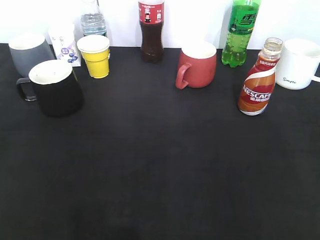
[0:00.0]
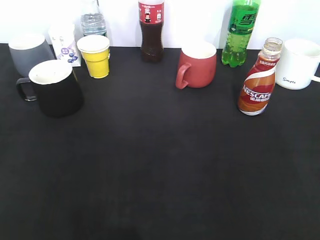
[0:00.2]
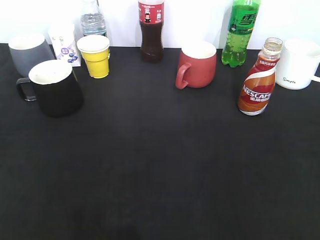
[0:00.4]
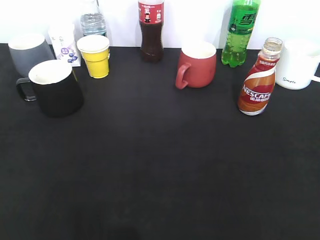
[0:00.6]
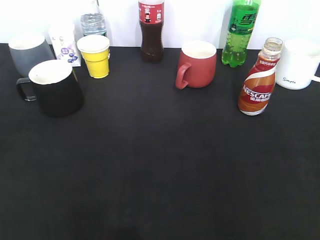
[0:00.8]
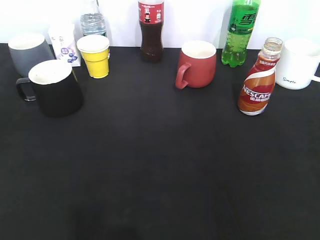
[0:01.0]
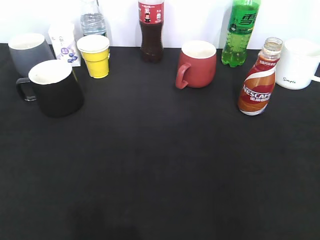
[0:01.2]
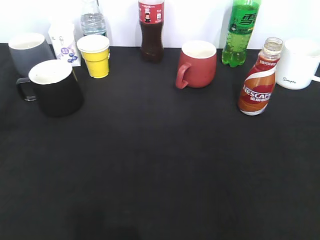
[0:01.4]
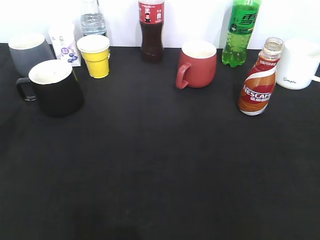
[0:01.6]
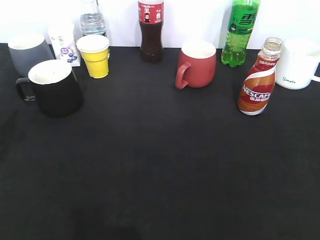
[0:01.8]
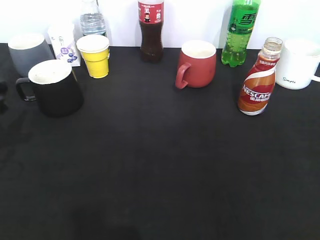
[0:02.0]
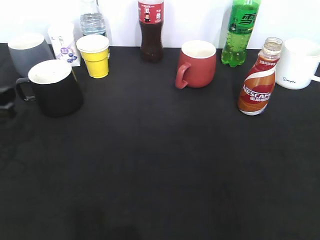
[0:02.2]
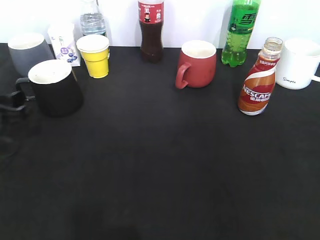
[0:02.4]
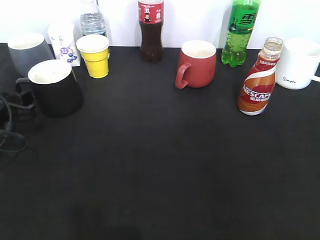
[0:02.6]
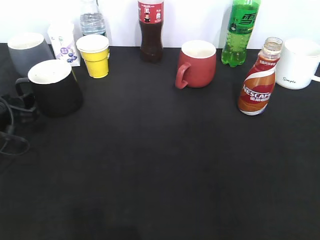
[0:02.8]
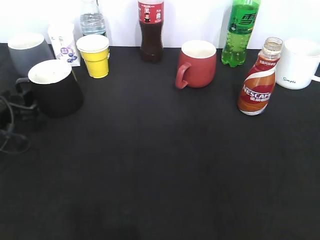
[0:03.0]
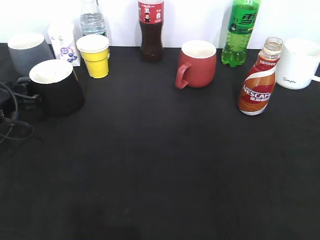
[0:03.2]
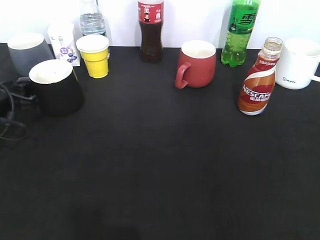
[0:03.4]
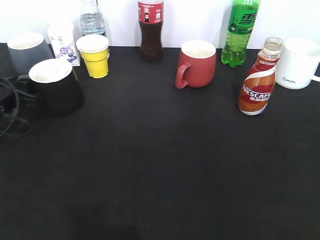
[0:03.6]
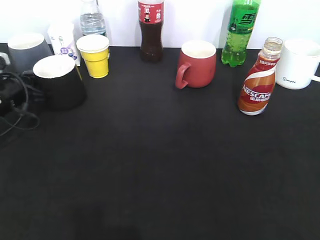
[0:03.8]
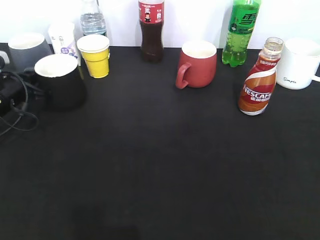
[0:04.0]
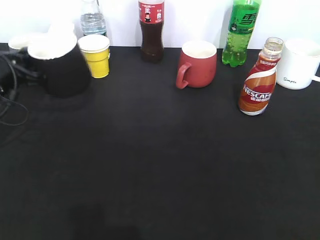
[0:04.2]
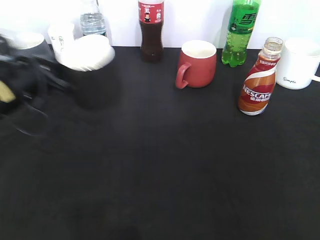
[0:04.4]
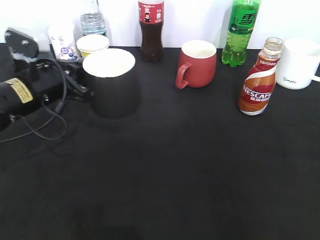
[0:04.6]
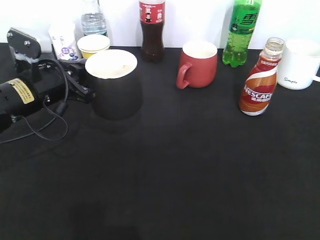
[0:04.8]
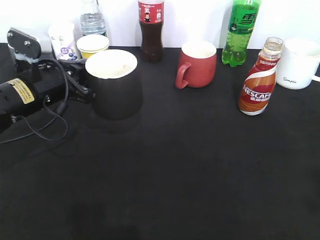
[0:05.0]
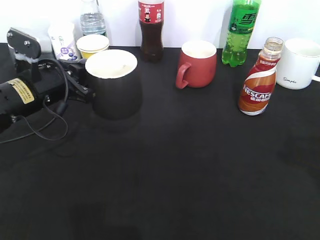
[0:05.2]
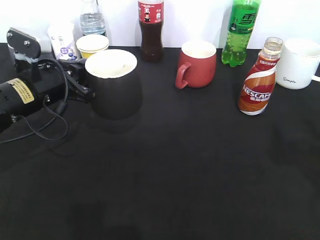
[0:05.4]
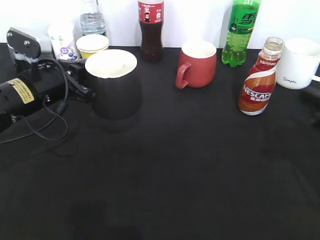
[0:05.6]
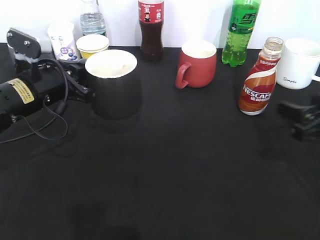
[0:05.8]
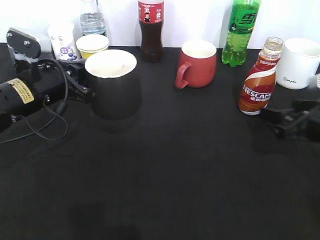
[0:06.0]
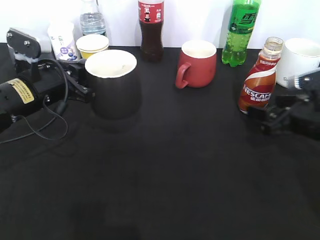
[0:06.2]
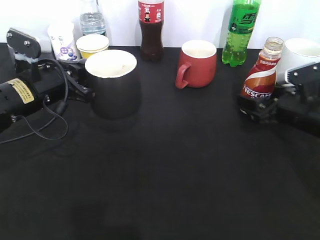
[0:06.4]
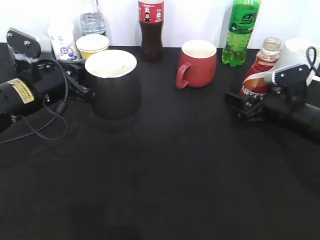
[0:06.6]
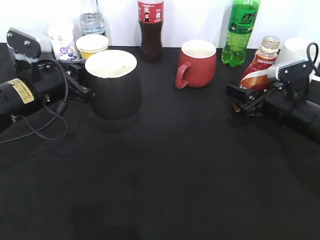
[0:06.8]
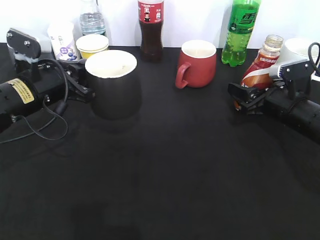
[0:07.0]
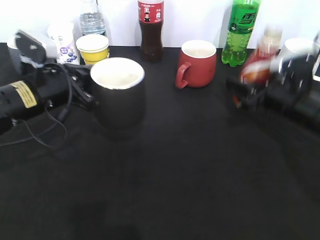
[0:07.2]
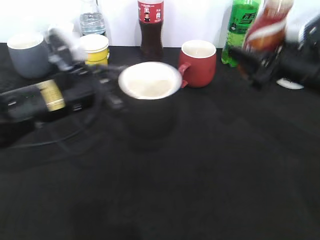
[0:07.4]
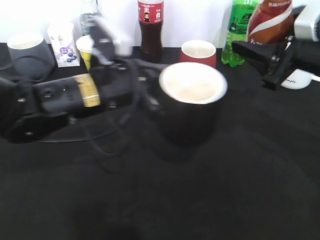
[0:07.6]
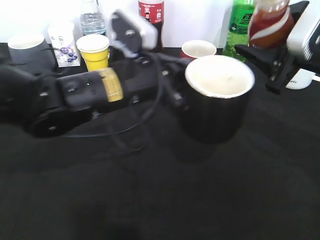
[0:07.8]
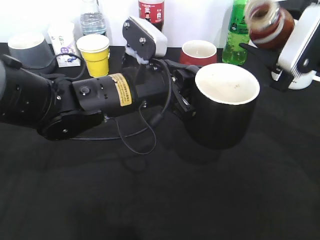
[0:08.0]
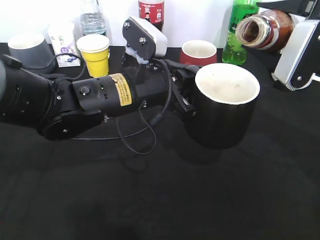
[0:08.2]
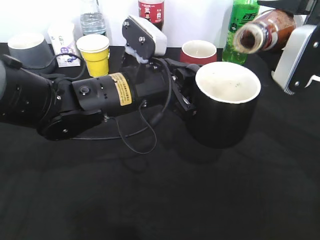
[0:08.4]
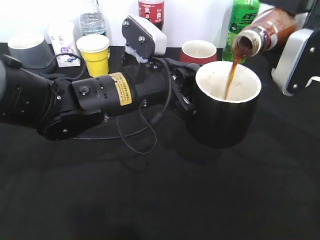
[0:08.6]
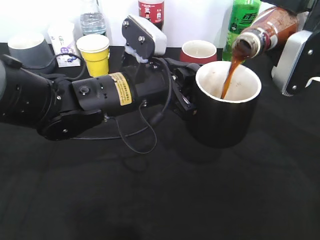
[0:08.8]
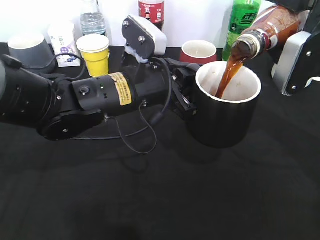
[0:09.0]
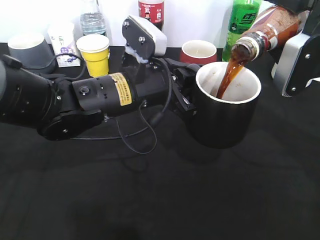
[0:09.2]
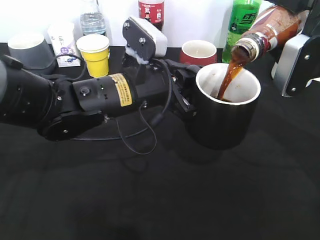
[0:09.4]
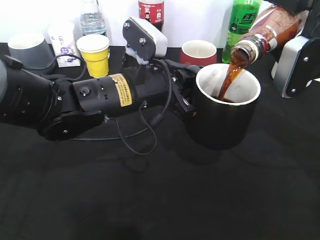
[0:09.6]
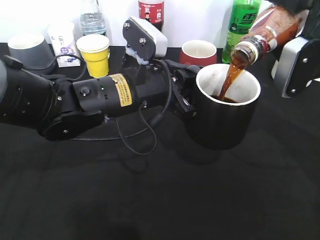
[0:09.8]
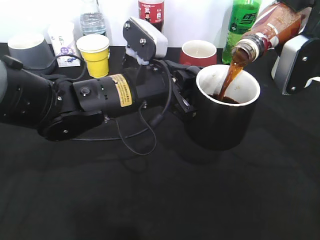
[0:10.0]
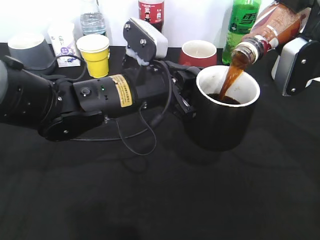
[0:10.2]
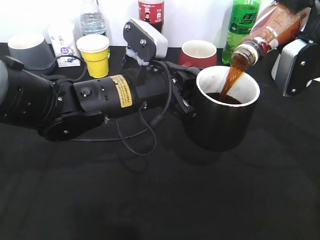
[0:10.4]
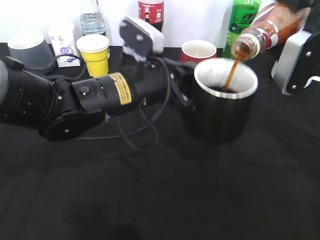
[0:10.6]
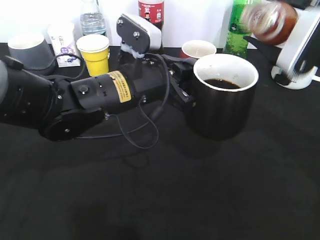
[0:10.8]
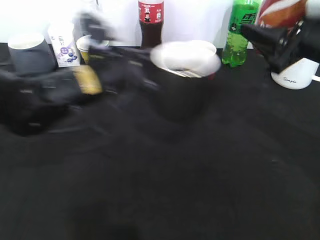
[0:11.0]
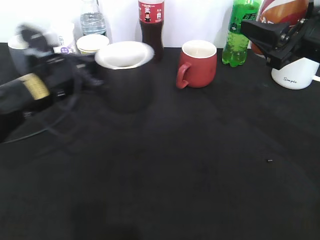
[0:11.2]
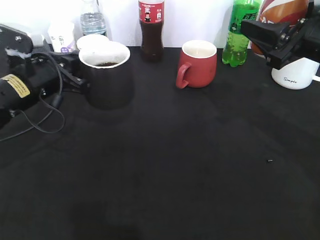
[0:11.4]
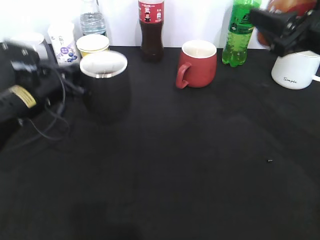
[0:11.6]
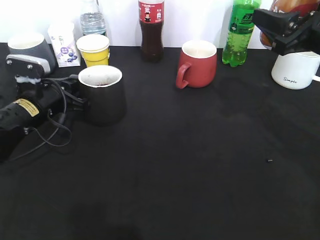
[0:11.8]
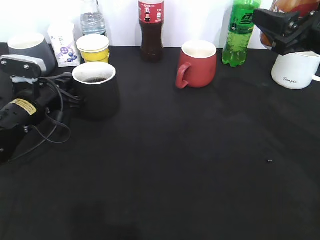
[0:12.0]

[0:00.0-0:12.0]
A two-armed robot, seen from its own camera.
Step, 0:00.6 to 0:03.8: Grasp the black cup with left gripper.
Step, 0:04.0 to 0:04.6: Lift the black cup with left gripper.
Step, 0:04.8 to 0:06.8: Grasp the bottle with coffee with right gripper.
Step, 0:07.2 to 0:11.2: Pour the coffee from bottle to cup with right gripper.
0:01.6 to 0:03.0: The left gripper moves downward and forward, some 15 cm.
0:03.0 to 0:04.4: The left gripper shifts approximately 5 cm to the right, and closes its fingers.
0:04.4 to 0:06.0: The right gripper is displaced forward and downward by about 30 cm, and opens its fingers.
0:06.0 to 0:07.6: The right gripper travels upward by some 10 cm, and closes, while the left gripper goes roughly 10 cm to the right.
0:09.0 to 0:10.4: The grippers make only small movements.
0:10.4 to 0:12.0: The left gripper shifts roughly 20 cm to the left and downward.

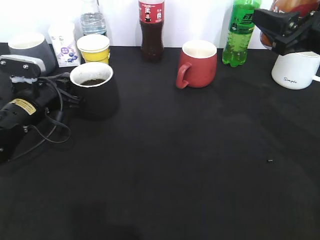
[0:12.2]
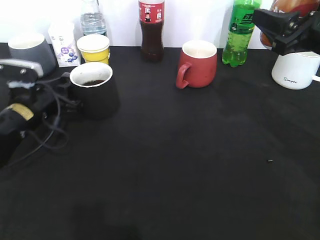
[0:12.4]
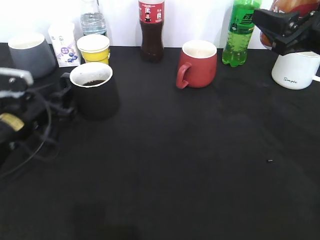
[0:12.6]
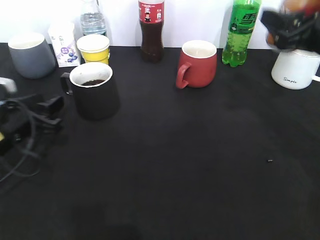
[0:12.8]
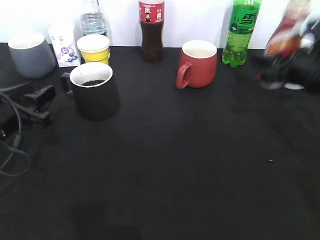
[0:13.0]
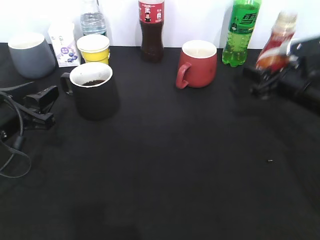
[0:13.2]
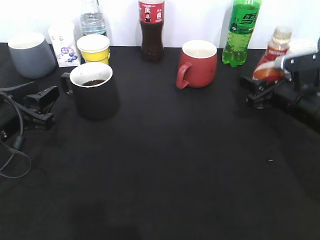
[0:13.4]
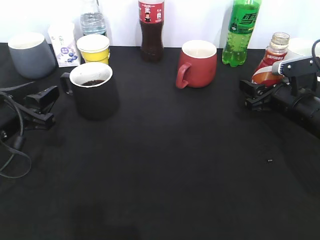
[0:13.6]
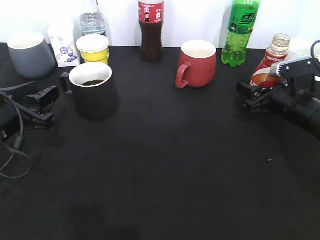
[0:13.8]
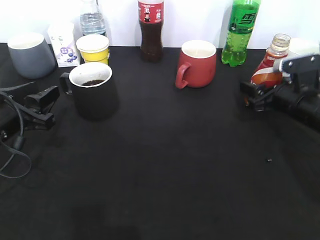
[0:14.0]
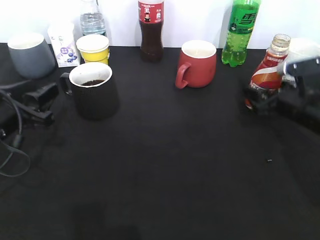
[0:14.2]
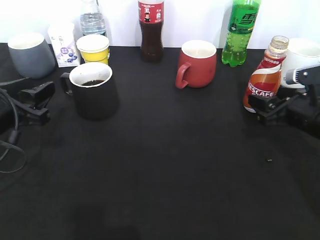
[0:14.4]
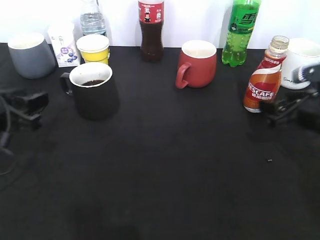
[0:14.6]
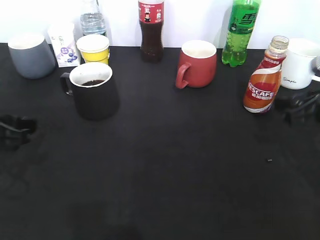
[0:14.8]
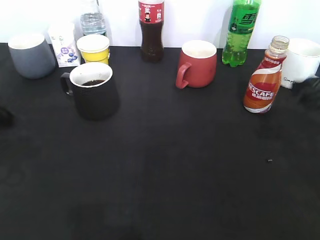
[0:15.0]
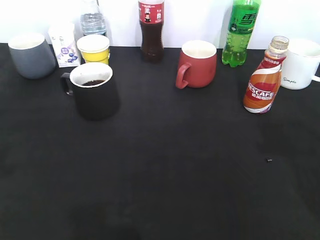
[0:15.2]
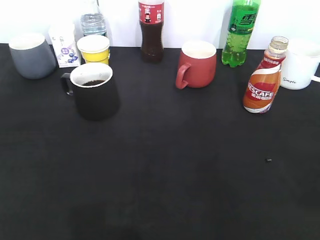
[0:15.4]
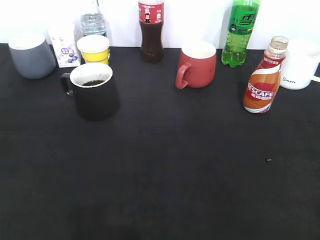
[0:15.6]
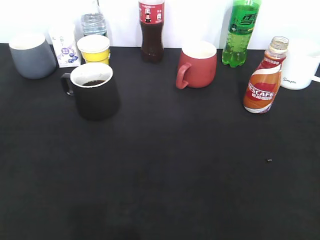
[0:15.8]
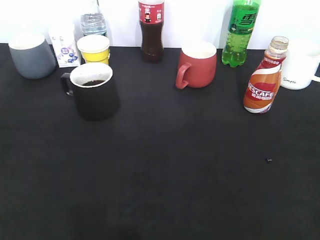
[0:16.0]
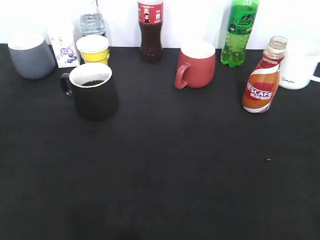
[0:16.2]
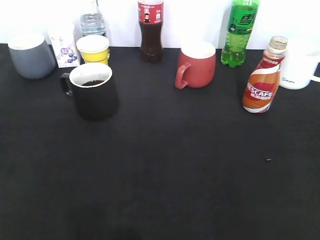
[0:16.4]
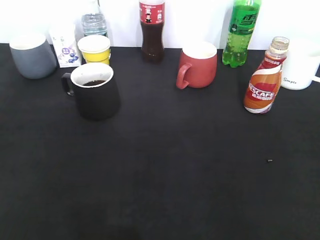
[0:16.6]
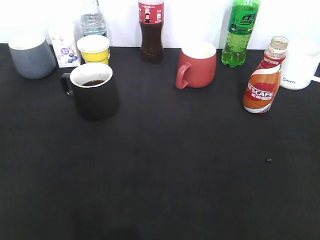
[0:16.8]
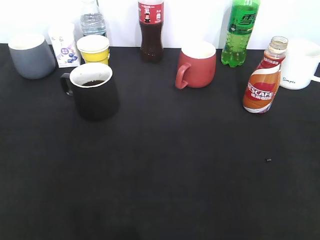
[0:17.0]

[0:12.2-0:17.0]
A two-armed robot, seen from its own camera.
Step, 0:12.8 to 0:14.4: Place the coffee bottle on the table with right gripper.
0:12.2 to 0:13.8: The right gripper moves downward, approximately 15 cm, and opens; the left gripper goes about 10 cm backward, and opens.
0:13.8 to 0:15.4: Both grippers move backward and upward, about 30 cm.

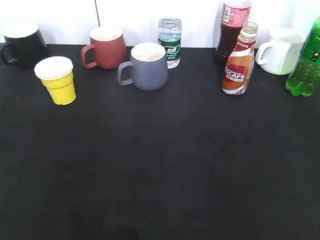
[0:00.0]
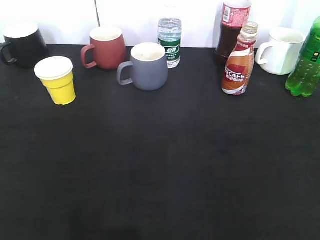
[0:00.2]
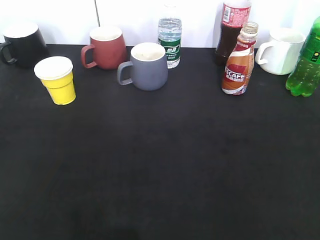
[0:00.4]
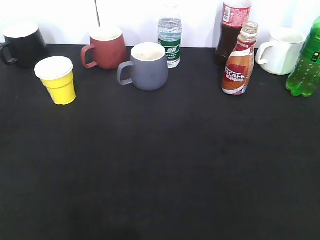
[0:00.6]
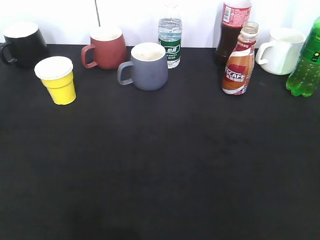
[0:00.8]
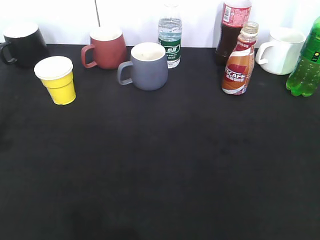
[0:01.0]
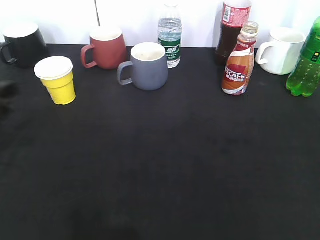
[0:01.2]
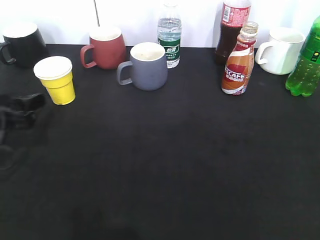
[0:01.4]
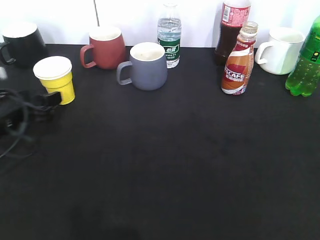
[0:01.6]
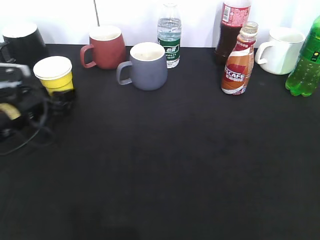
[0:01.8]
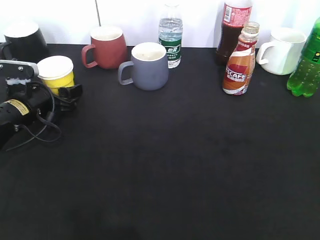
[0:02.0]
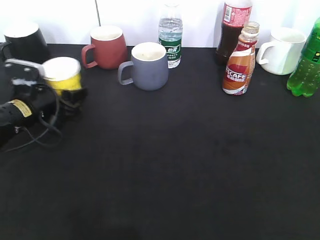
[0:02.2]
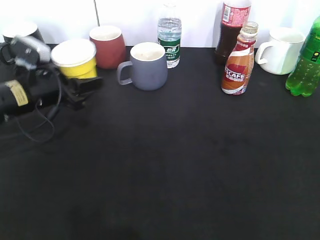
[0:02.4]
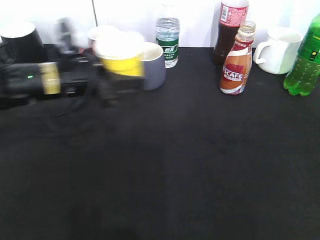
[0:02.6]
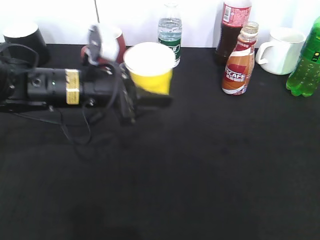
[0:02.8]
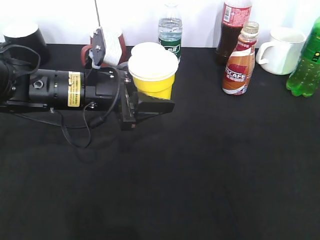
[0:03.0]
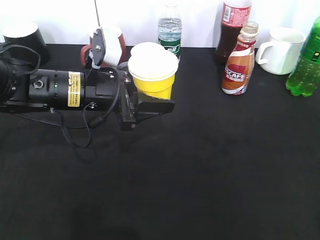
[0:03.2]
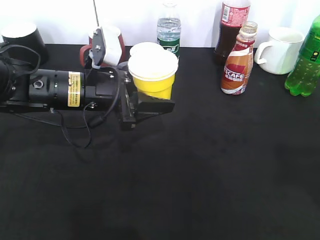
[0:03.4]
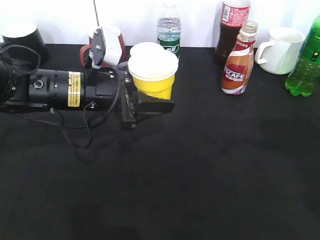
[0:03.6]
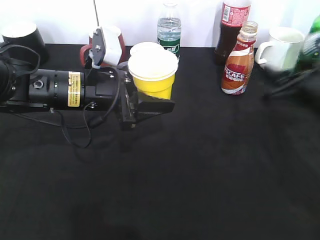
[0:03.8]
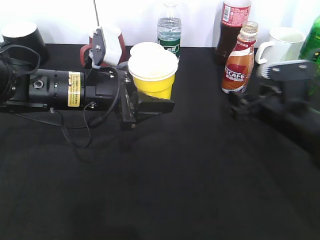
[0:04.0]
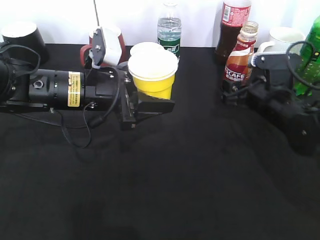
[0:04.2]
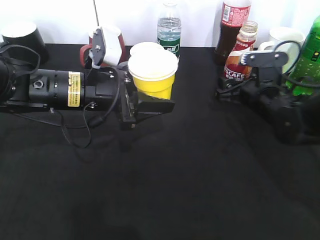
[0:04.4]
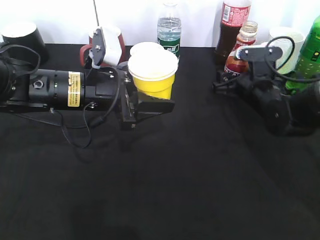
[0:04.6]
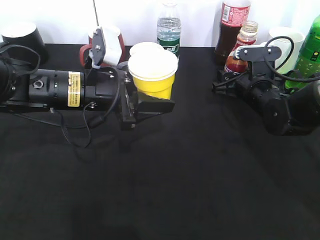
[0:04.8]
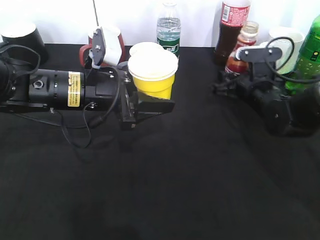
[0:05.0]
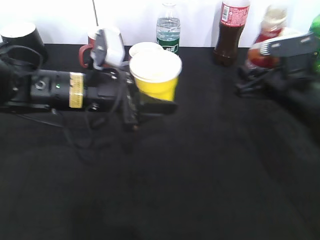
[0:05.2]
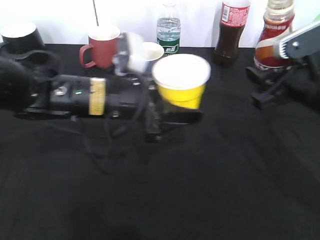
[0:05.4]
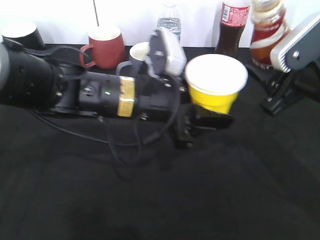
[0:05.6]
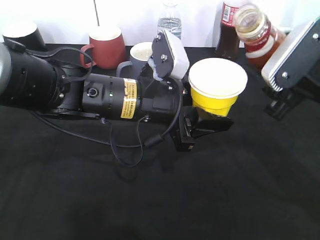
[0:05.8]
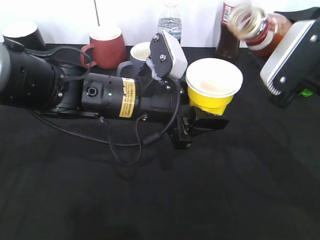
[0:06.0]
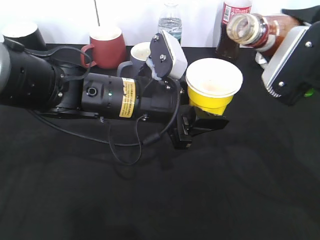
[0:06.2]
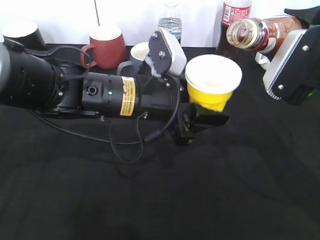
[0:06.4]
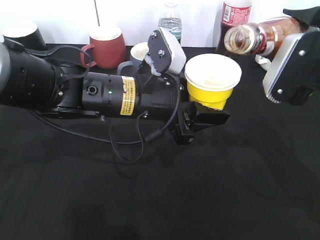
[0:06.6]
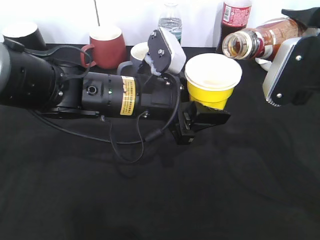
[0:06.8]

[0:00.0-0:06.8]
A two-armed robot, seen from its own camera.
Step, 0:00.0 to 0:02.0: Grasp the yellow paper cup with left gripper.
Step, 0:02.2 to 0:03.2: Lift the yellow paper cup with left gripper.
Step, 0:03.4 to 0:04.8: Grasp the bottle with coffee with right gripper.
0:00.0 to 0:01.4: The left gripper is displaced forward and downward by approximately 30 cm, and opens.
0:01.4 to 0:02.8: The left gripper moves to the right, approximately 15 cm, and closes up.
0:02.8 to 0:04.0: The right gripper is displaced forward and downward by about 35 cm, and opens its fingers.
0:04.0 to 0:05.4: The right gripper travels upward by approximately 10 cm, moves approximately 10 cm forward and comes back, and closes up.
